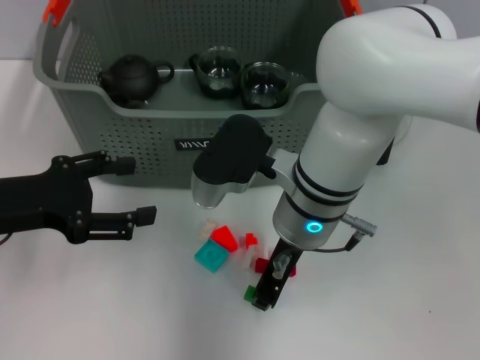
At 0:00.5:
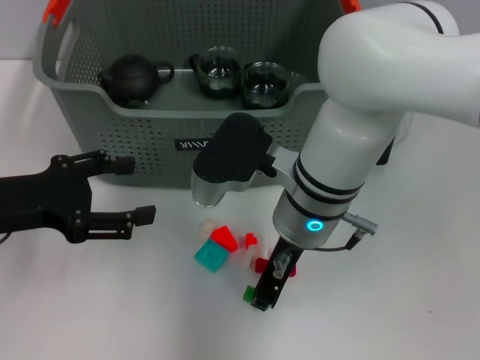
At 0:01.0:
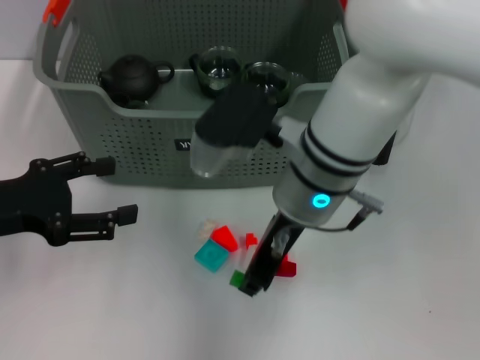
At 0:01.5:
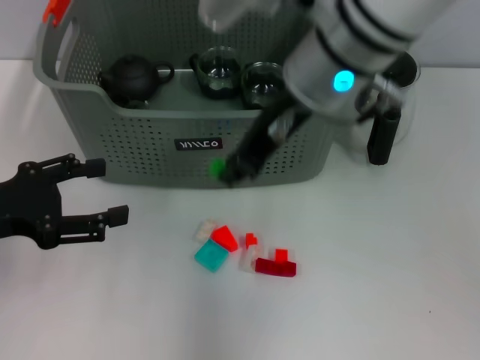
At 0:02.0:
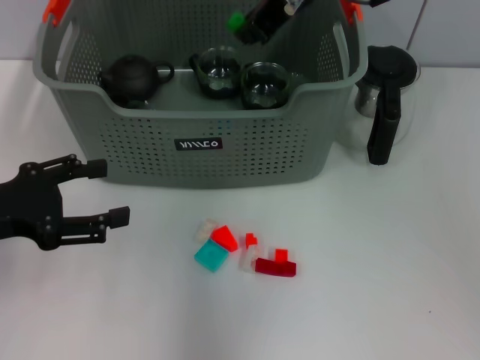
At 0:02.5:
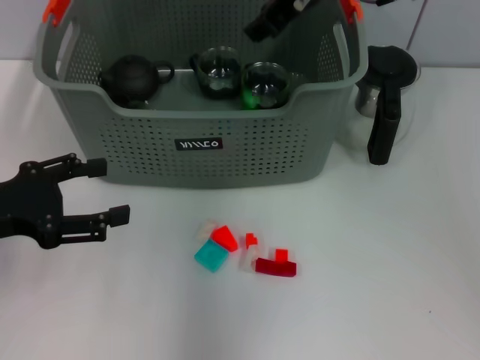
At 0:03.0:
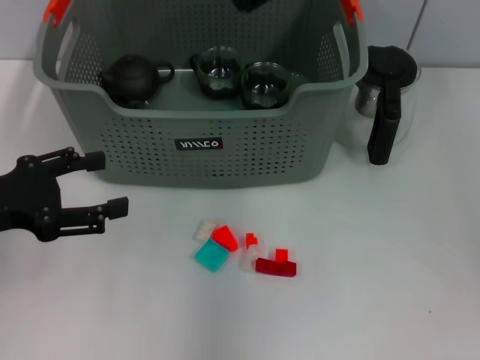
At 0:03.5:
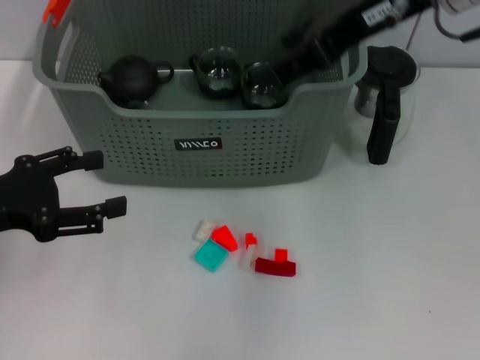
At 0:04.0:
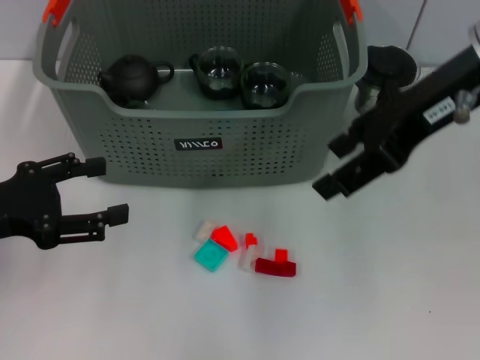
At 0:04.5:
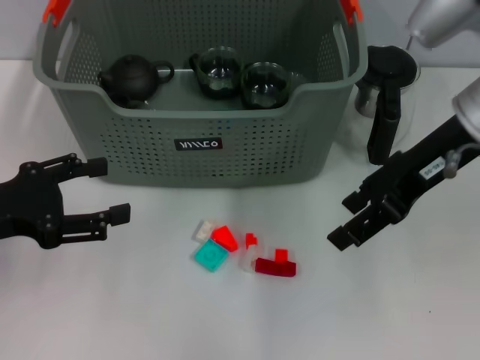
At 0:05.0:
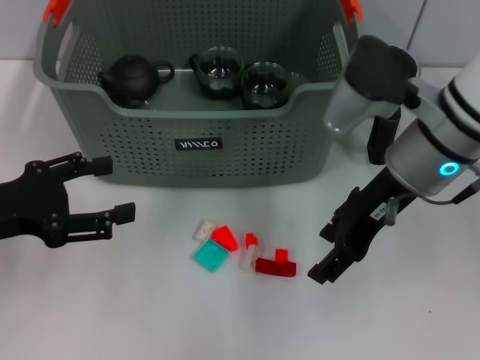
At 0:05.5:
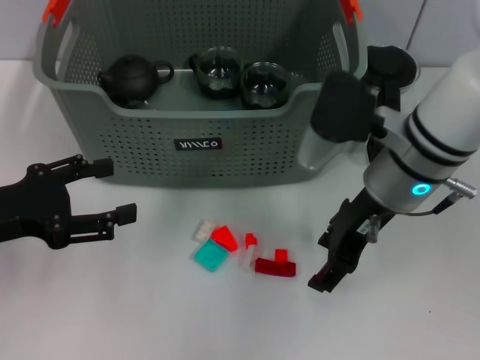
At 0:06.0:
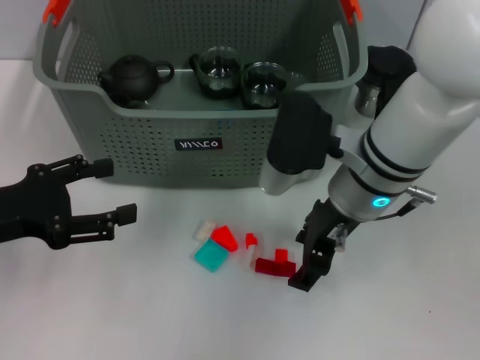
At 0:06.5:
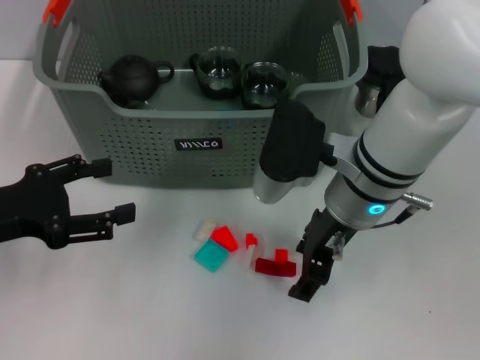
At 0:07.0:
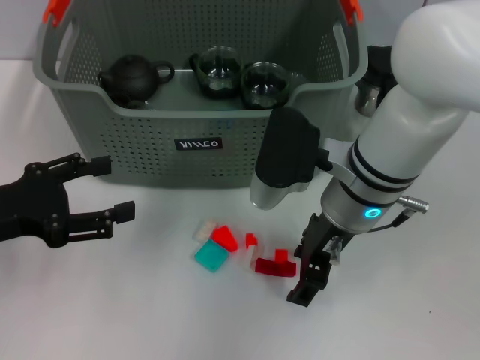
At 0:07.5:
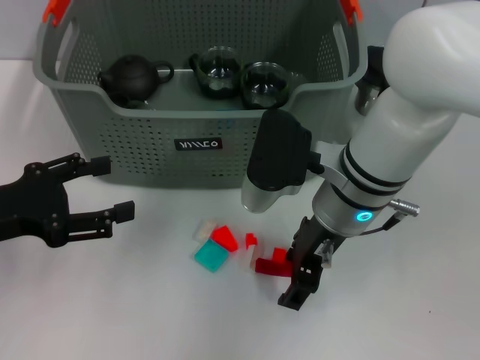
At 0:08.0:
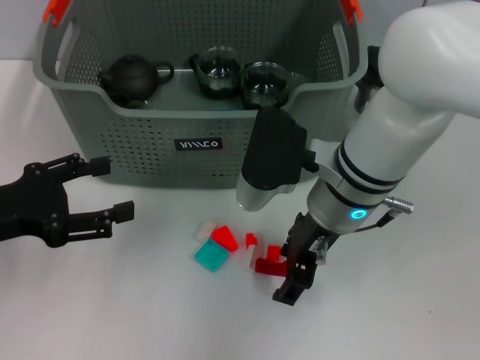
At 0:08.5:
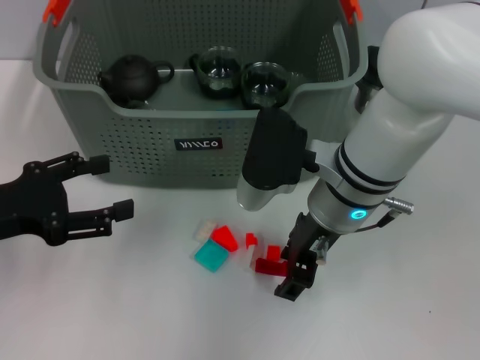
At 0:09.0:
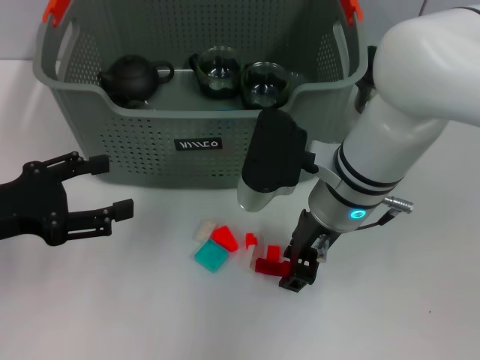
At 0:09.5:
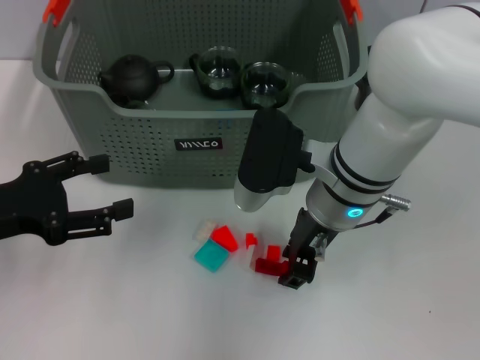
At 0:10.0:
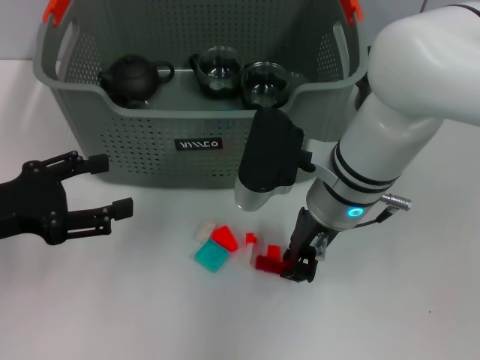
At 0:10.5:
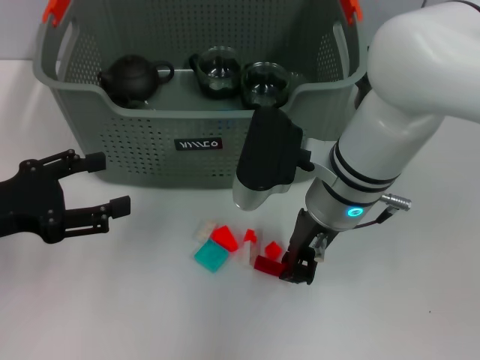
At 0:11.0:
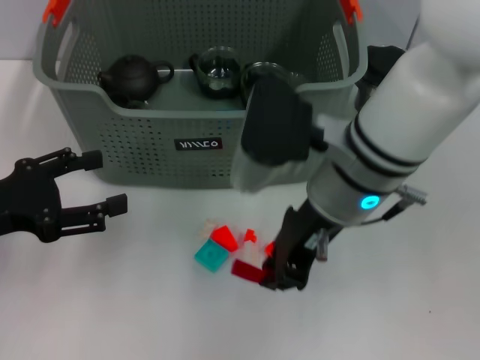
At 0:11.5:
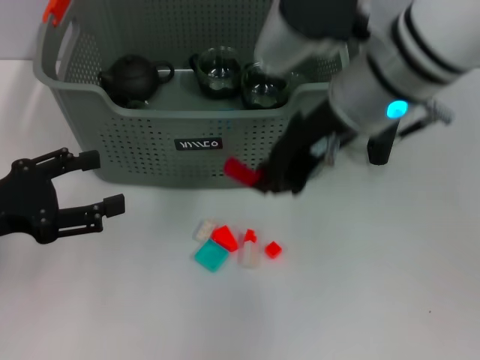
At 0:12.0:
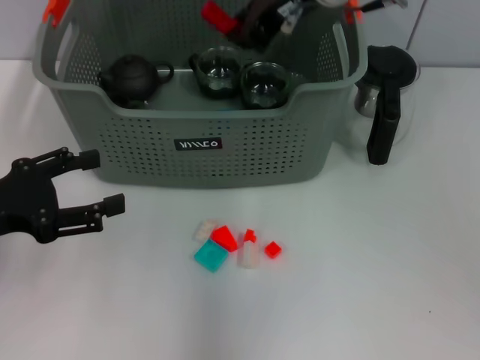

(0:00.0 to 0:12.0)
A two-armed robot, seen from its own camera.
Task of the whole recording: pick up the teacup on the table and place it into the storage bin, pick up the block on the table and place it into the storage bin.
Step, 0:00.0 - 0:02.5: Place the green block in the storage box with right gripper.
Step, 0:03.0 - 0:10.0: Grasp the red block with right gripper.
0:00.0 - 0:02.0: The right gripper goes about 20 cm upward and forward.
0:02.0 - 0:04.0: The right gripper travels to the right and backward by about 15 cm, and opens up.
0:04.0 - 0:06.0: The right gripper travels downward and to the left by approximately 15 cm.
0:06.0 - 0:08.0: There are only small adjustments of the grippers.
0:08.0 - 0:10.0: The right gripper closes up.
0:10.0 - 0:12.0: The right gripper heads upward and forward, covering about 20 cm.

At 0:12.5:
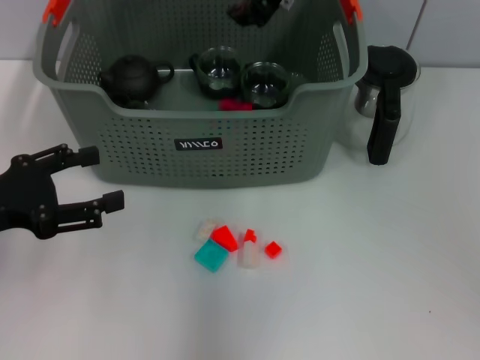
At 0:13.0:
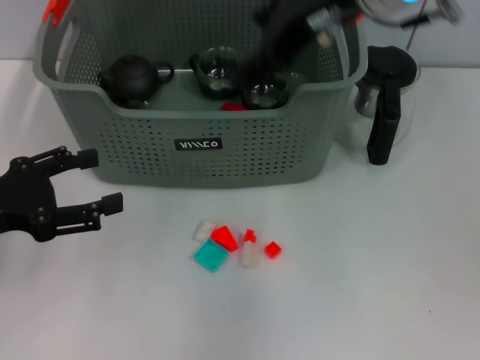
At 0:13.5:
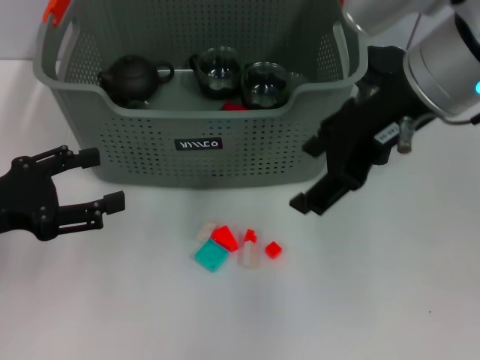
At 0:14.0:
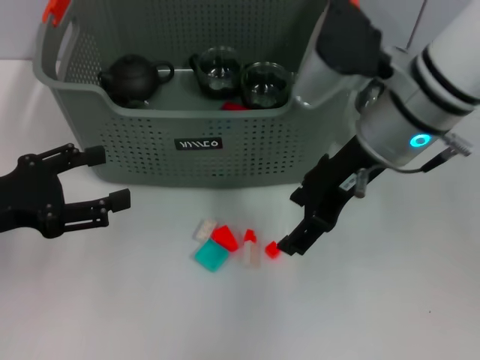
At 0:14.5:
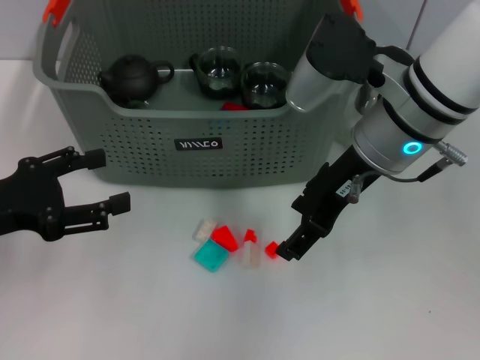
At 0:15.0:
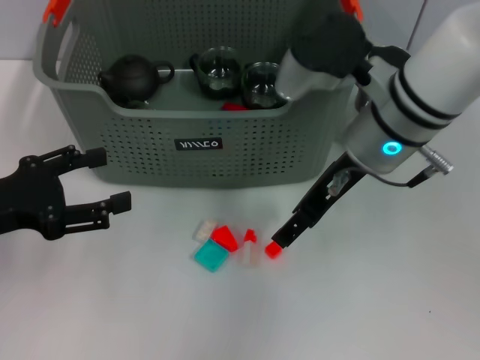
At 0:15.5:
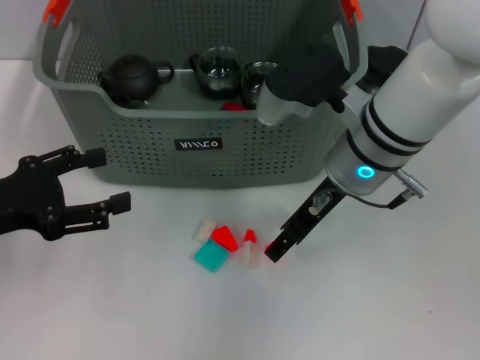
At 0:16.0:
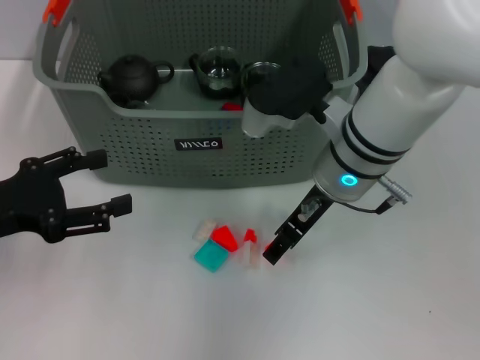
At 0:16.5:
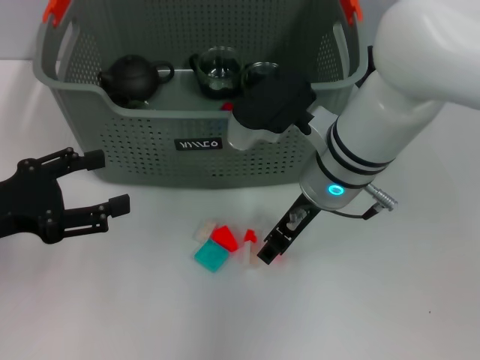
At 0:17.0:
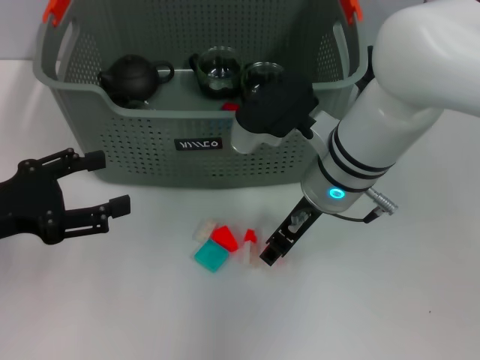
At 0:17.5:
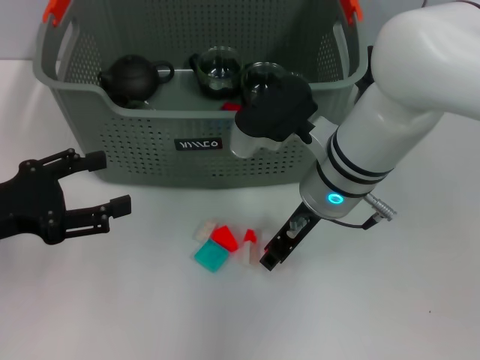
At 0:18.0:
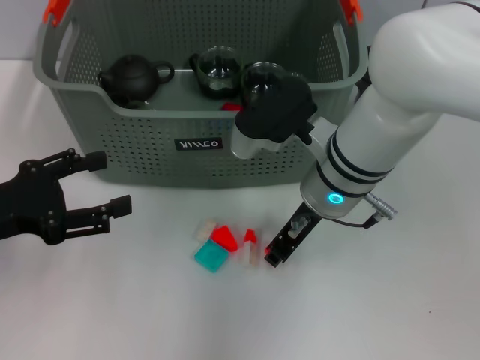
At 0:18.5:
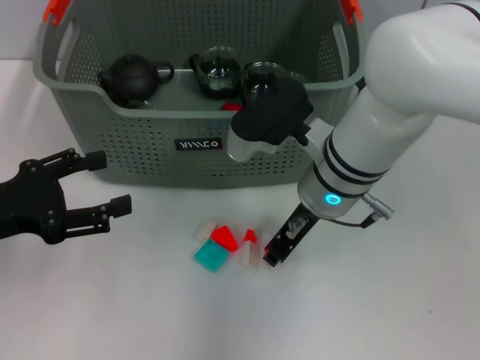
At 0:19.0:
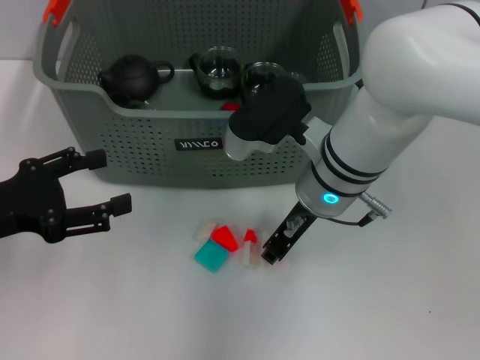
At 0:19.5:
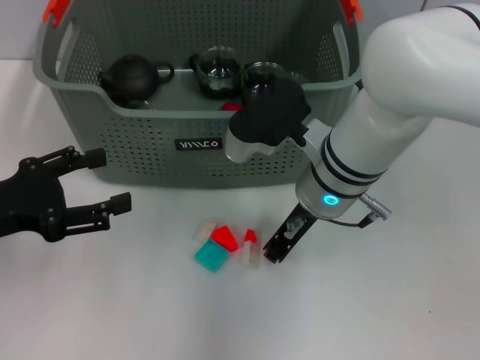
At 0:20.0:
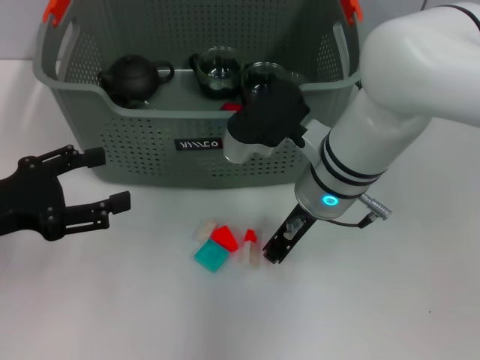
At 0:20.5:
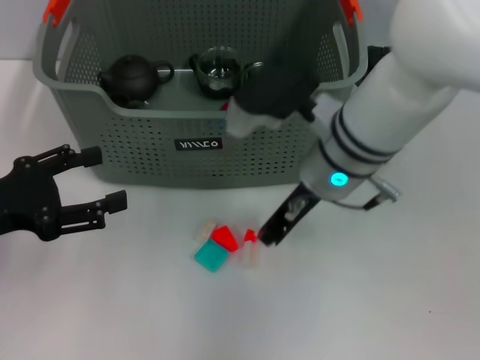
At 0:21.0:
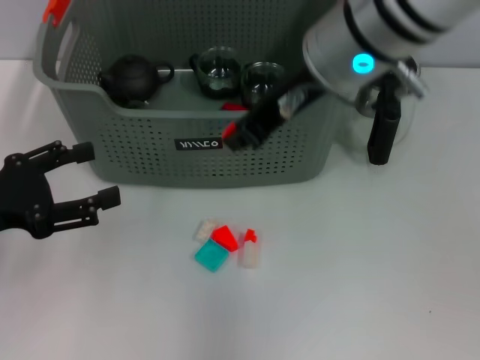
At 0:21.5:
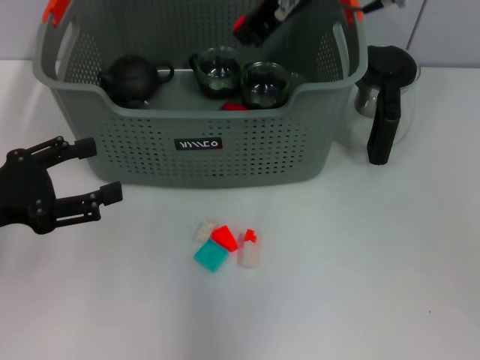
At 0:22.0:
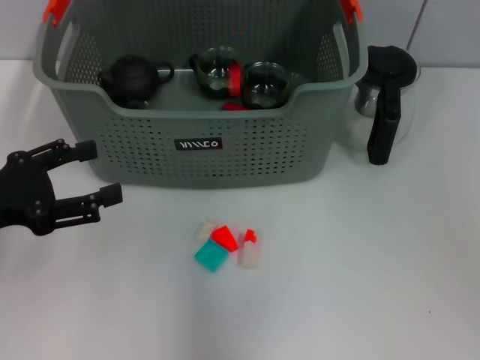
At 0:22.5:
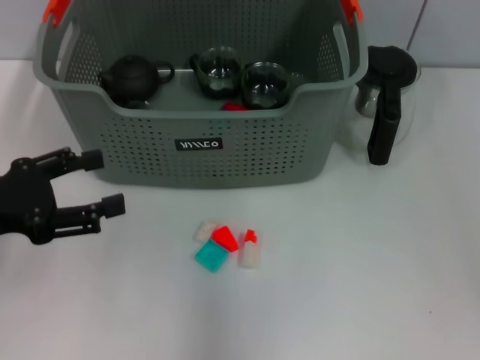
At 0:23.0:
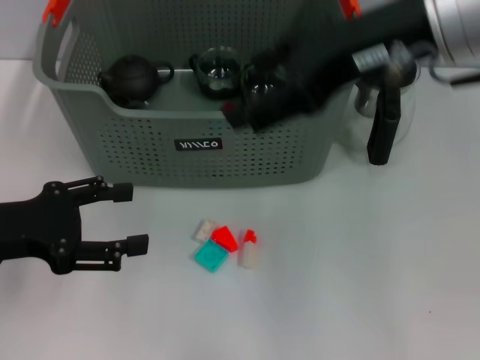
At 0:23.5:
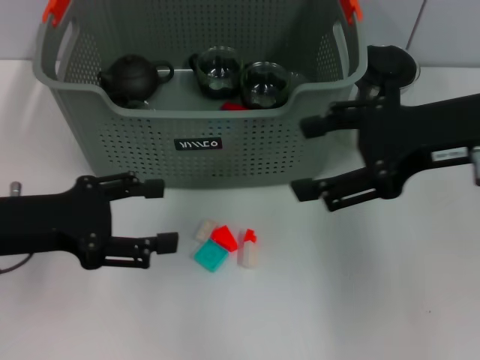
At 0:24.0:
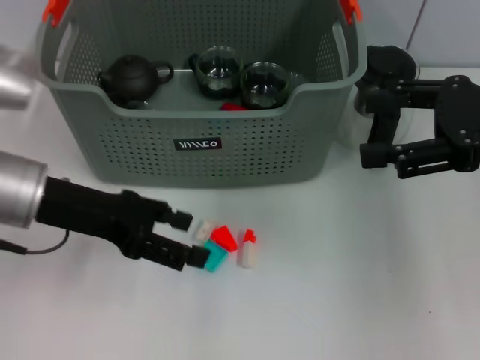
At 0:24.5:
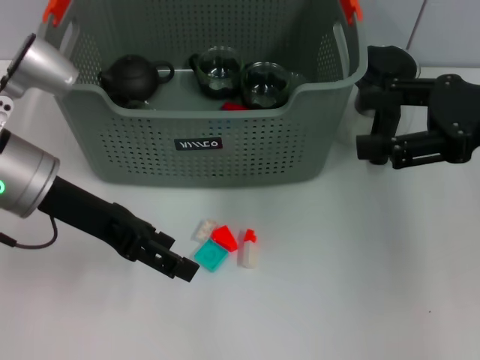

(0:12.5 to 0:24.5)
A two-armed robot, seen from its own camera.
Task of the whole recording: pick up the teacup on the table and place it into the storage bin, pick up the block on the table and place it into the storage bin.
Step, 0:13.0 - 0:19.5: Grasp the orange block with right gripper.
Step, 0:20.0 - 0:22.5: Place the orange block in the storage box with right gripper.
0:12.5 - 0:14.5: The right gripper shifts approximately 10 cm downward and backward, and opens up.
0:14.5 - 0:16.5: The right gripper travels downward by roughly 5 cm.
0:16.5 - 0:18.5: The right gripper closes.
0:18.5 - 0:20.5: There are only small adjustments of the grippers.
0:20.5 - 0:22.5: The right gripper moves upward, roughly 20 cm, and opens its fingers.
0:22.5 - 0:24.5: The left gripper goes about 10 cm to the right and forward. Meanwhile the right gripper goes about 25 cm to the right and downward.

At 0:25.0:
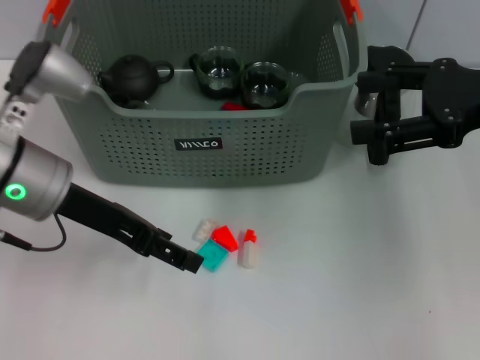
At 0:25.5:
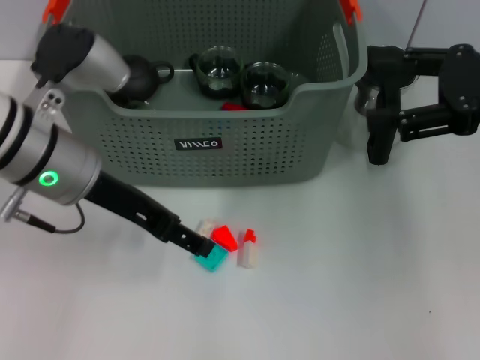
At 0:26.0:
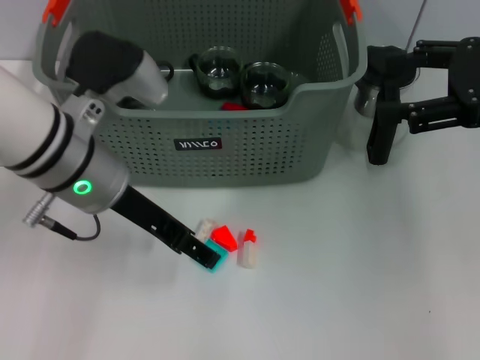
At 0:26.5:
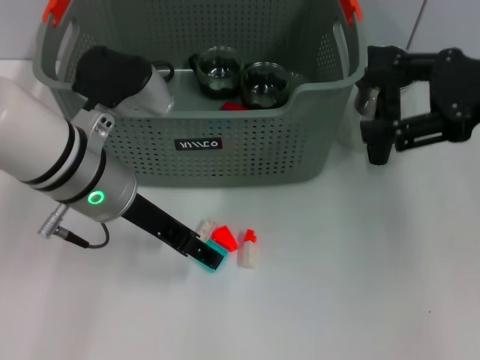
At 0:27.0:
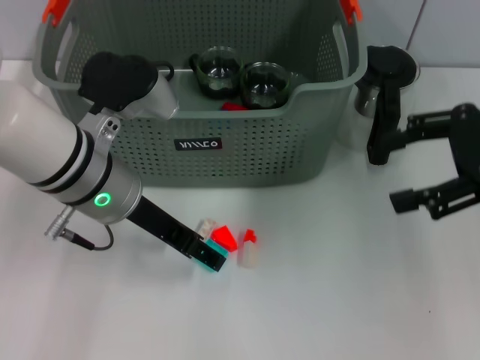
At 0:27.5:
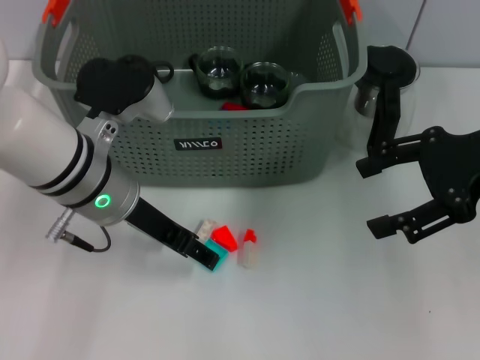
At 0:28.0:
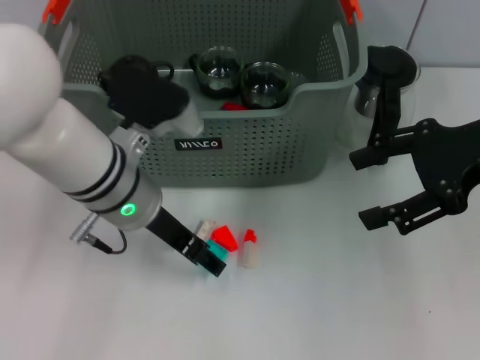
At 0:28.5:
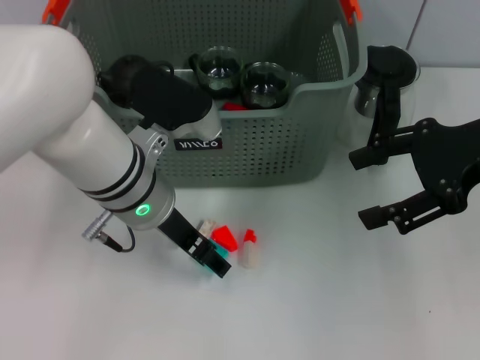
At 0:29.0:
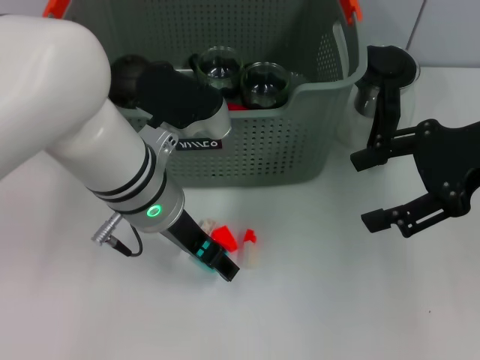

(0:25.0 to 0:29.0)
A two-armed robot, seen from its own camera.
Task of the whole recording: pick up the teacup on the table and place it into the storage bin, pick up the block on the table and place it into the storage bin.
0:25.0 - 0:27.0: The left gripper is displaced to the right by some 5 cm.
